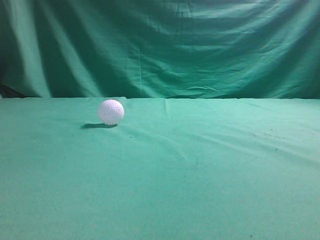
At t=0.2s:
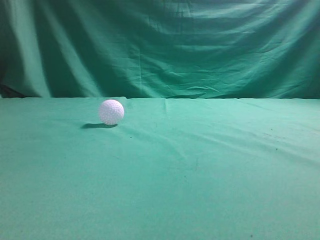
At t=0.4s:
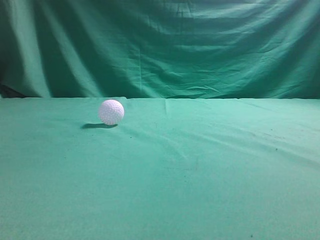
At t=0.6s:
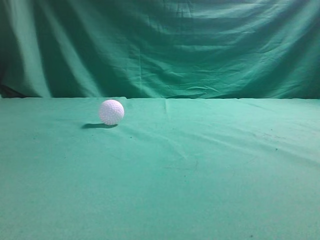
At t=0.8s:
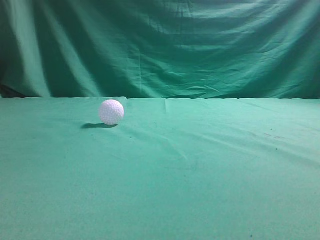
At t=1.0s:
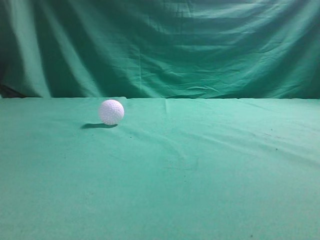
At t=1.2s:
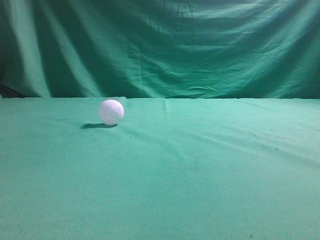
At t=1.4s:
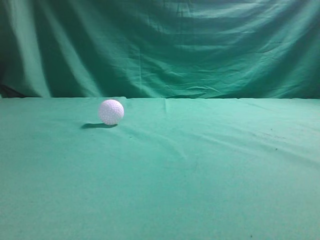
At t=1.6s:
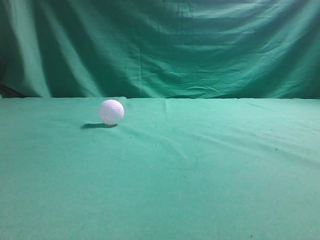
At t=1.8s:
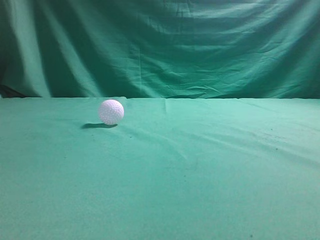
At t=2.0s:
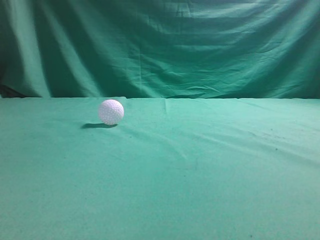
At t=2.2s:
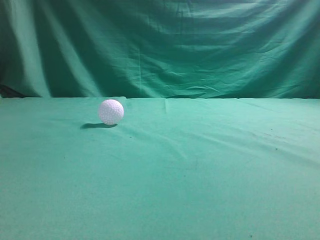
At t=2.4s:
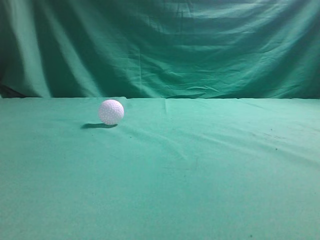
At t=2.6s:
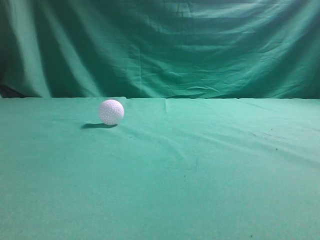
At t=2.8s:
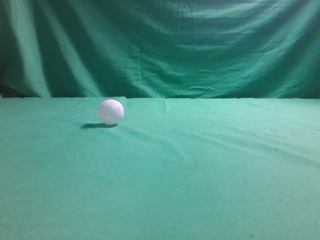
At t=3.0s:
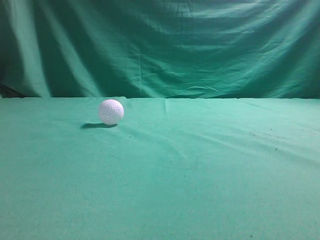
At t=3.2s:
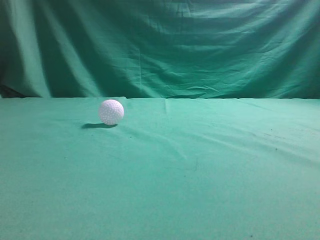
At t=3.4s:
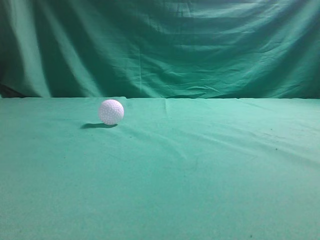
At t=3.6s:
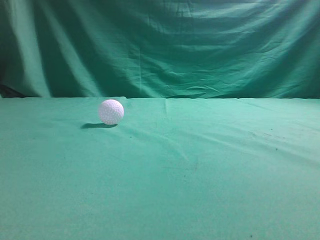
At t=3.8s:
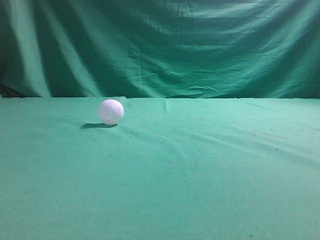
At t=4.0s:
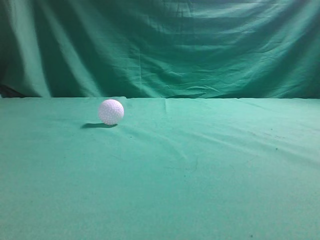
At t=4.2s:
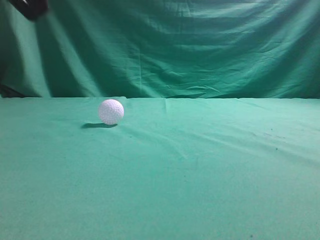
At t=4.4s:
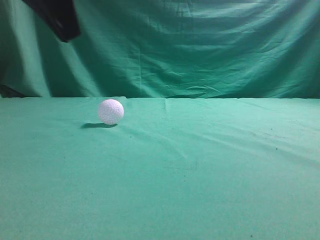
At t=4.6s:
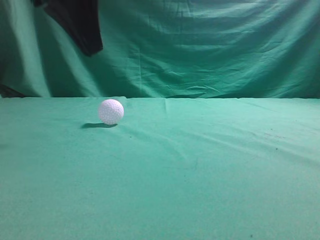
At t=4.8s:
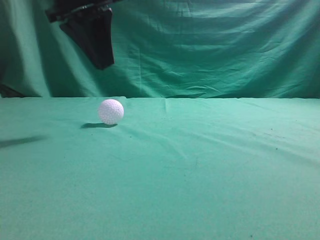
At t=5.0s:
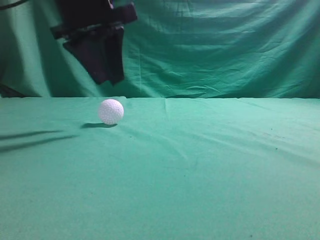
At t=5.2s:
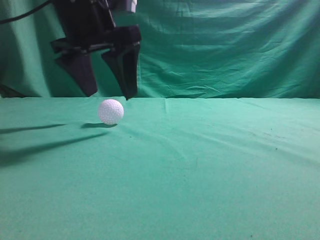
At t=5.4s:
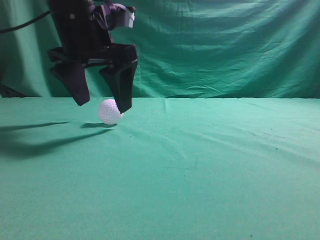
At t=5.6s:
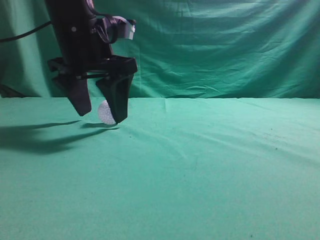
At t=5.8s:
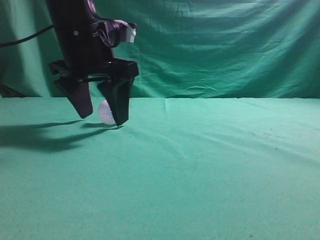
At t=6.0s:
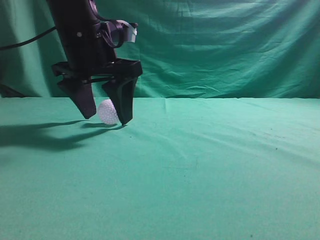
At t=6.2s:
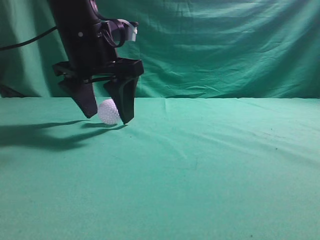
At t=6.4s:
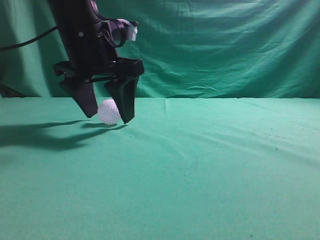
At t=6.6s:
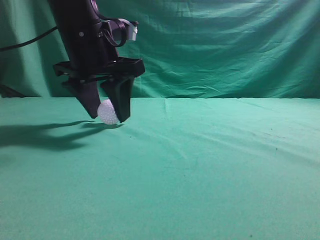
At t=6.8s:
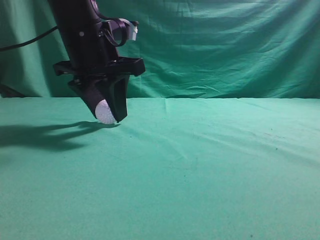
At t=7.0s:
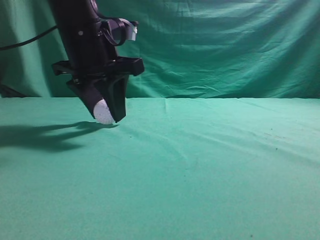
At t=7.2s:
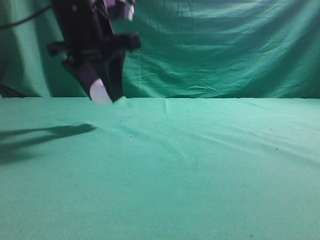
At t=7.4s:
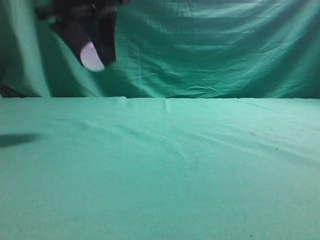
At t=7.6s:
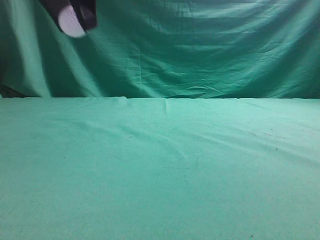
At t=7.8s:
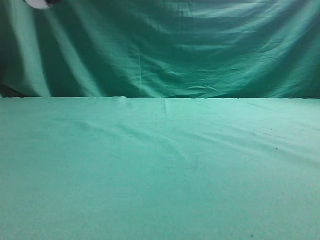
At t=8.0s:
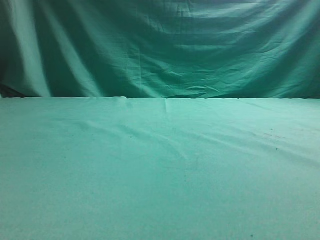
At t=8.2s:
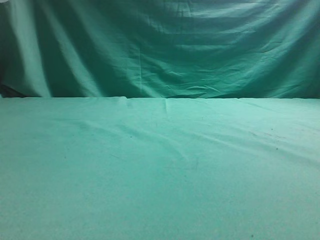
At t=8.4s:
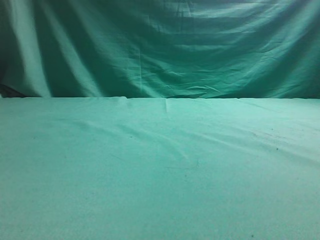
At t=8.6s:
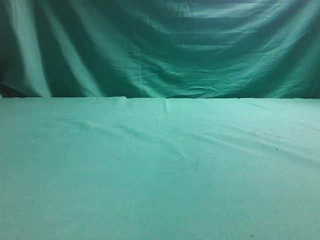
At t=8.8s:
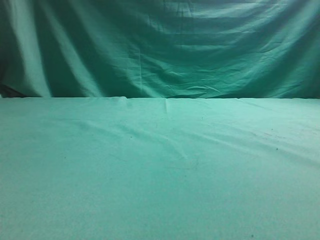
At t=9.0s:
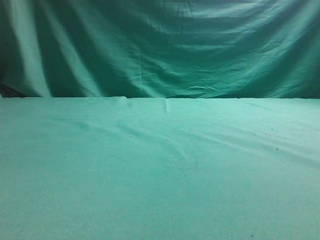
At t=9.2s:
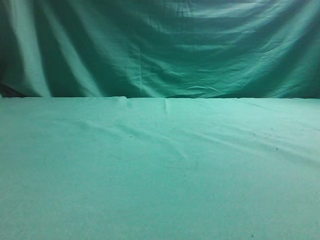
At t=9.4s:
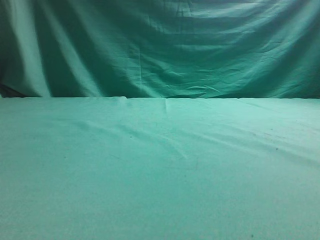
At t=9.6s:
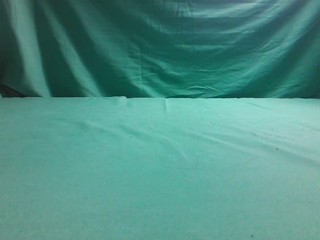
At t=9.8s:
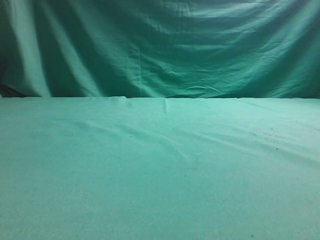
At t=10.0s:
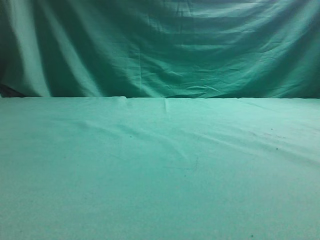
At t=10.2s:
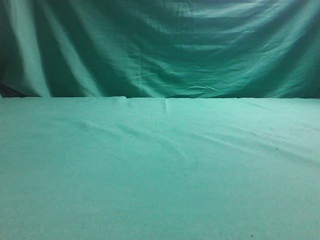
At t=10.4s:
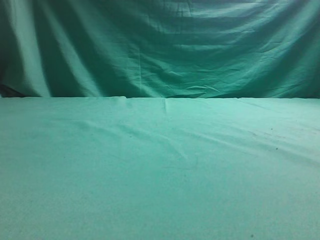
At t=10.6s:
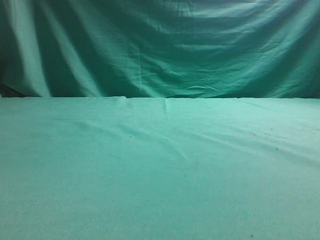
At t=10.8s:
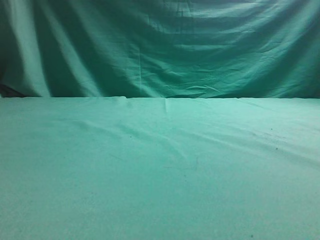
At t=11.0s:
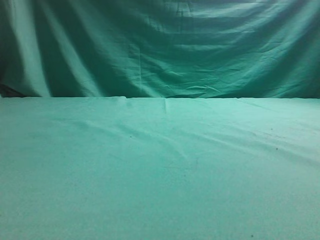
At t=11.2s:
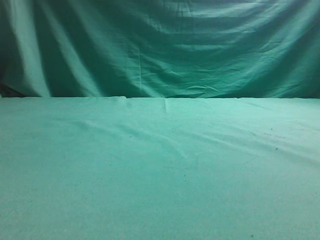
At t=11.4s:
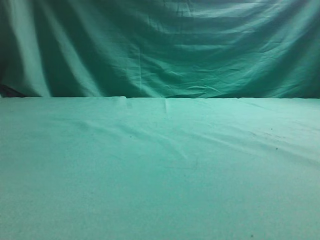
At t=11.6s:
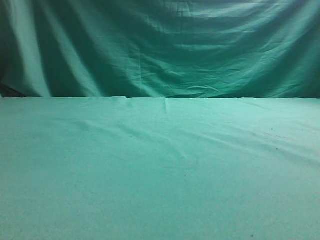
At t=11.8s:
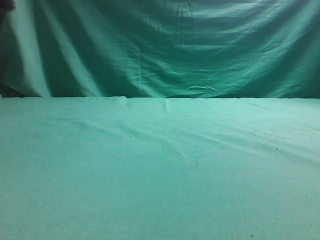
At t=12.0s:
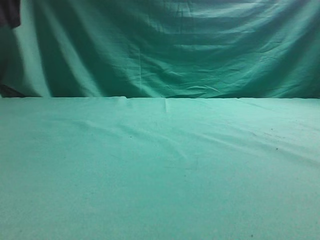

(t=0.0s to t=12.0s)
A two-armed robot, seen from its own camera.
Task of the whole recording: pick up the ball and place it on the plate, then pick up the ball from the plate and put it in the center of the table.
Step, t=0.0s - t=7.0s: Grab the spherical object with your left arm.
Step, t=7.2s - t=11.8s: Place the sphere on the white object.
t=3.0s - t=4.4s: The left gripper travels forward and to the right by approximately 25 cm.
t=4.4s - t=6.0s: The left gripper is displaced downward and forward by roughly 15 cm, and opens its fingers.
t=6.0s - t=7.6s: The left gripper moves upward, about 10 cm, and closes its fingers.
t=7.6s - t=9.0s: The left gripper goes roughly 15 cm to the left.

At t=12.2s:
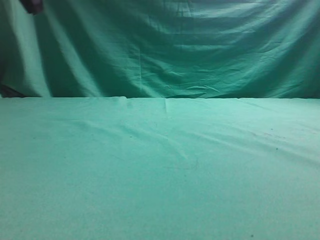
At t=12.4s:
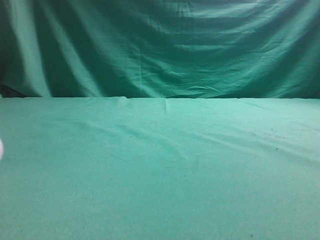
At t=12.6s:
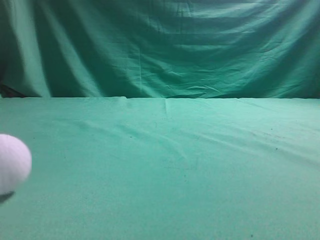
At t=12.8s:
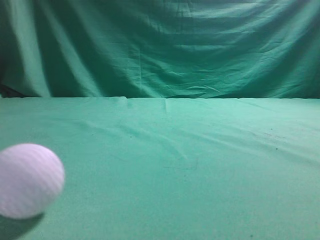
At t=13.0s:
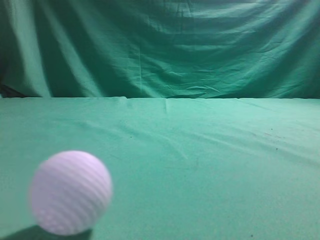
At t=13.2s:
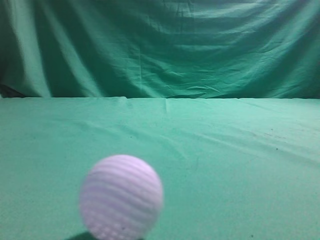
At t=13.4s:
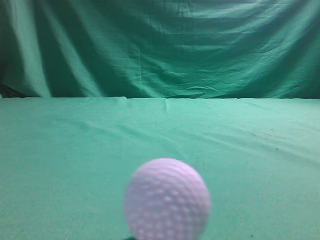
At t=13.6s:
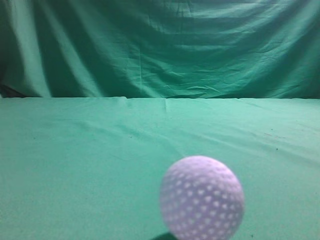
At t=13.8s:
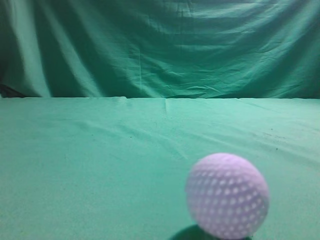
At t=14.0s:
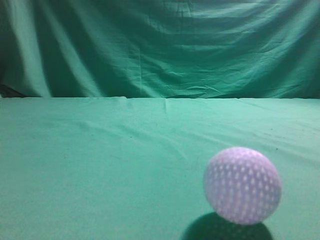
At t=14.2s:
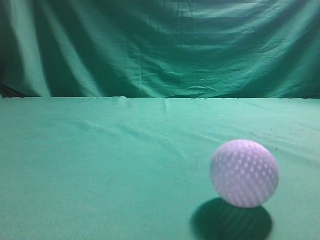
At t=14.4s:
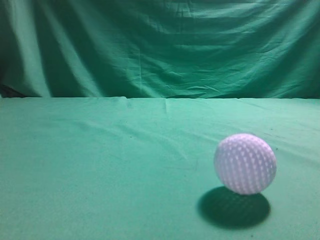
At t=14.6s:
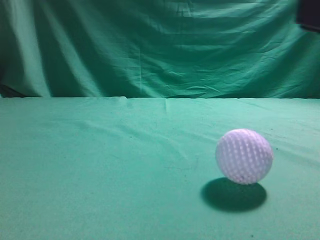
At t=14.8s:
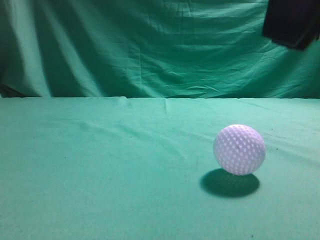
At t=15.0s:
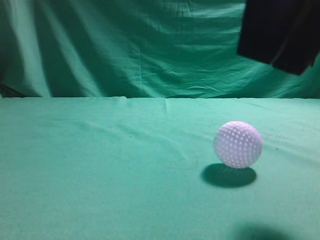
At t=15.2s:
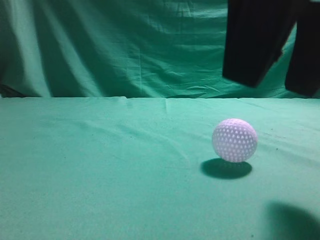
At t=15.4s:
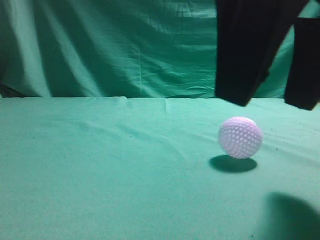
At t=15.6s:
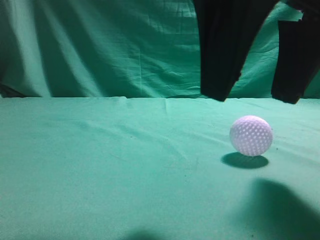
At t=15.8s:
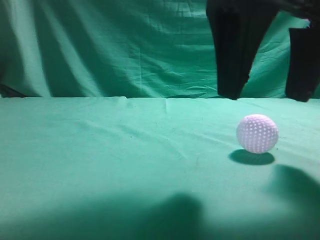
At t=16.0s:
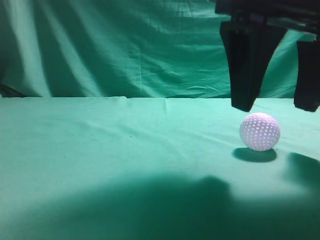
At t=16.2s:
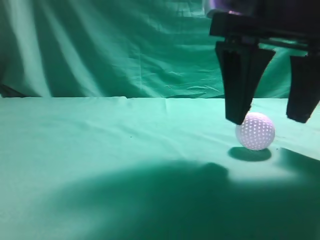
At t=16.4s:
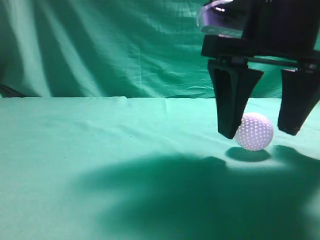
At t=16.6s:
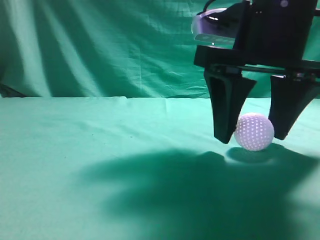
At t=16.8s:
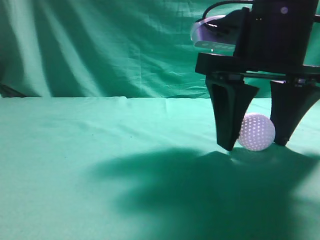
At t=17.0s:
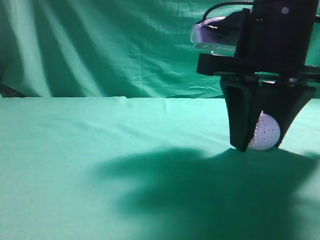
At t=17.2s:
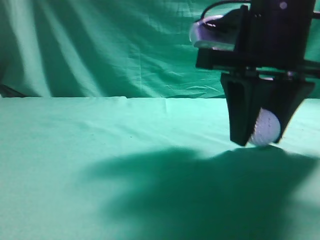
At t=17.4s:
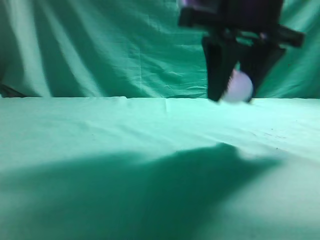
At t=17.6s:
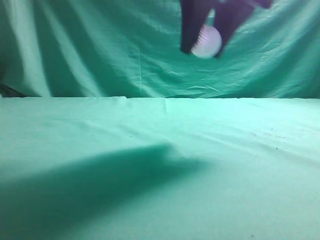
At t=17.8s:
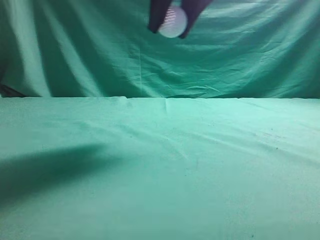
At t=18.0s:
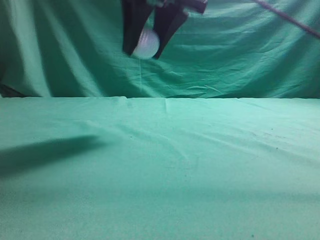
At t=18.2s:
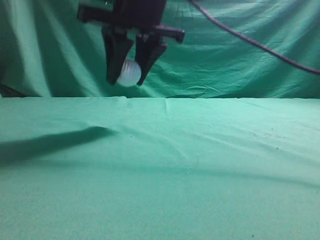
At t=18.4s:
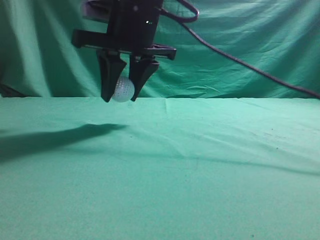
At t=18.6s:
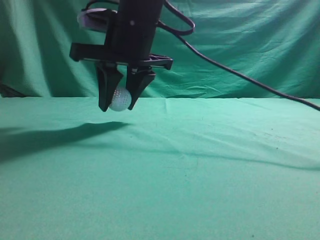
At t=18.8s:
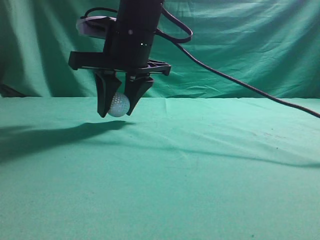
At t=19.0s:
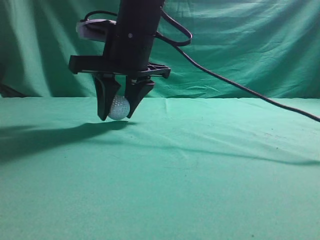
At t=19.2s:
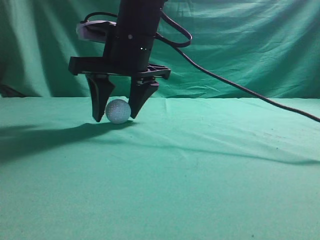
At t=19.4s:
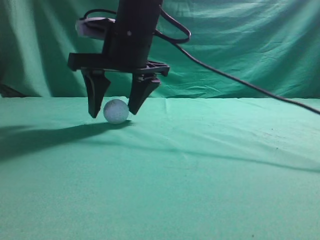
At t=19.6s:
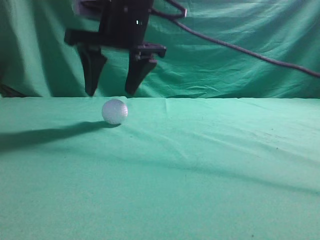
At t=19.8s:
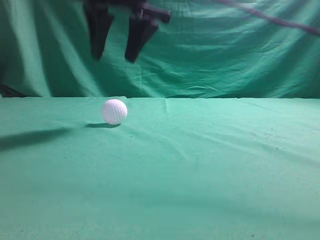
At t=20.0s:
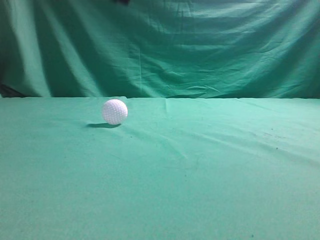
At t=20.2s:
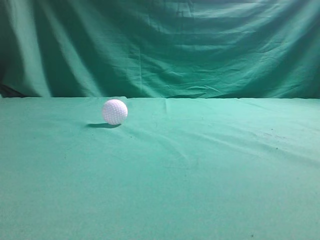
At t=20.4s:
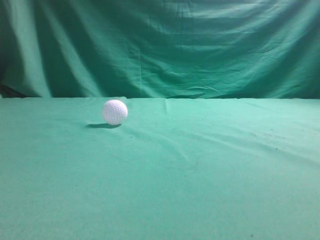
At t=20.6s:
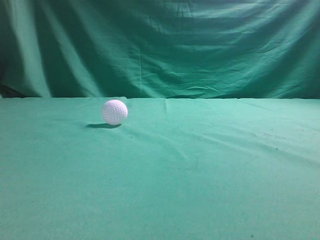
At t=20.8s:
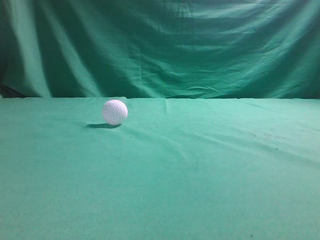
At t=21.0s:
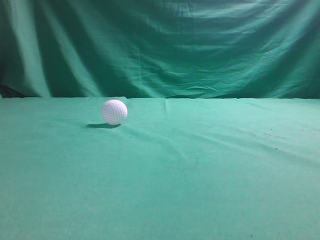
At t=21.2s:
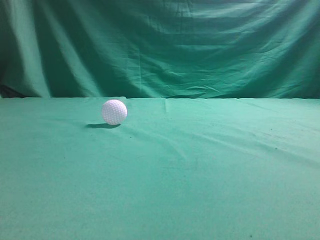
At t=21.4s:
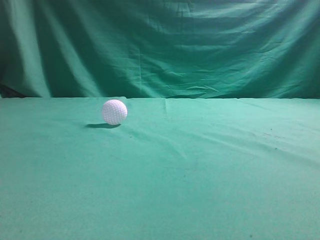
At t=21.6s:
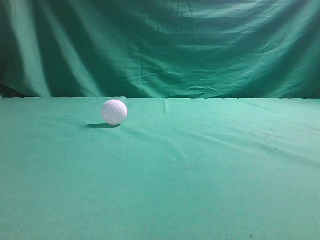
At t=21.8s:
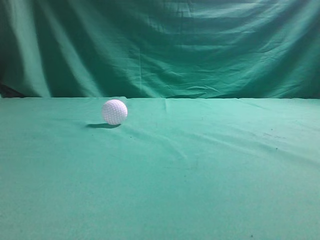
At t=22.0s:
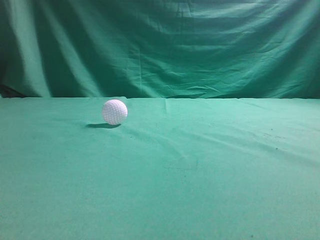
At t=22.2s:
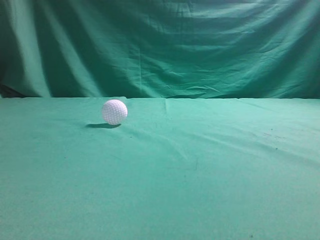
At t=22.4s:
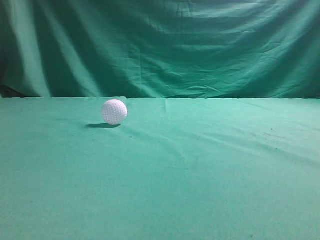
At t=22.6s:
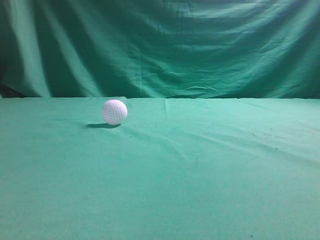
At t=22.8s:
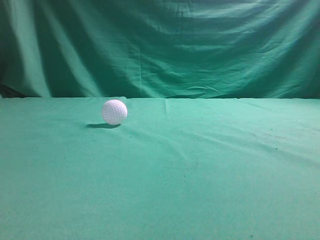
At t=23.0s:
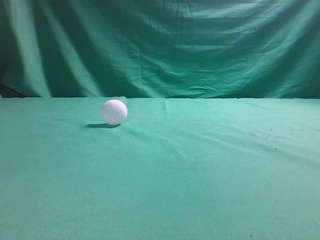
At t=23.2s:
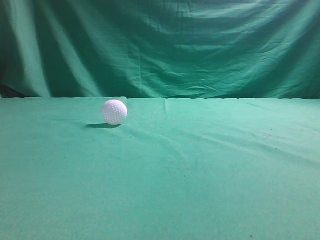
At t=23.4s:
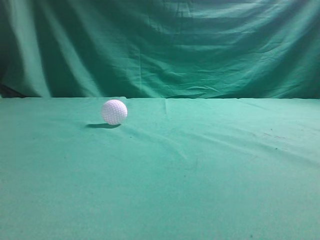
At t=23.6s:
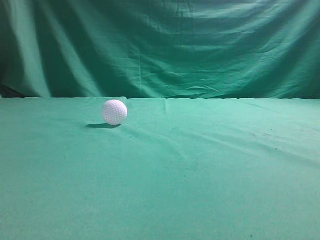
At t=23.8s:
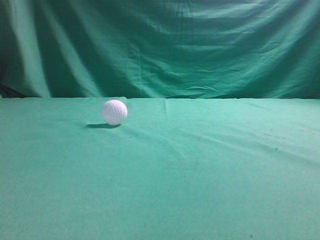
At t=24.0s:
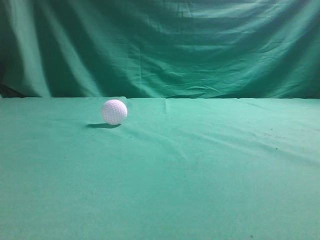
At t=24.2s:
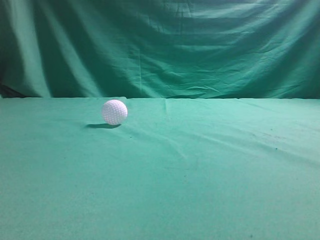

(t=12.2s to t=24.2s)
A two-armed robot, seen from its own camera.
Task of the whole recording: pick up the ball and place it on the plate, then pick up the ball from the plate and put it in the center of the table.
Step, t=12.2s - t=17.2s: Grab the rolling spherical object.
Step, t=17.4s - t=19.6s: Put the picked-up object on the table.
t=12.2s - t=13.8s: The left gripper goes about 30 cm backward.
t=13.8s - t=15.2s: The right gripper heads to the left, covering about 10 cm, and opens up.
t=15.2s - t=16.6s: The right gripper heads forward and downward, covering approximately 10 cm.
t=16.6s - t=18.2s: The right gripper heads to the left, forward and upward, covering about 15 cm, and closes up.
t=18.2s - t=19.8s: The right gripper reaches about 5 cm downward, then returns.
t=19.8s - t=21.2s: The right gripper goes roughly 40 cm backward, to the right and upward, and closes up. The left gripper is displaced backward by about 5 cm.
